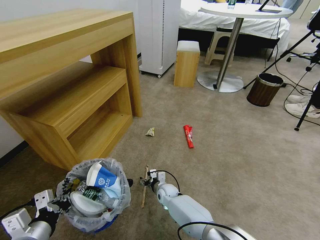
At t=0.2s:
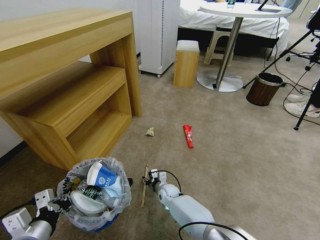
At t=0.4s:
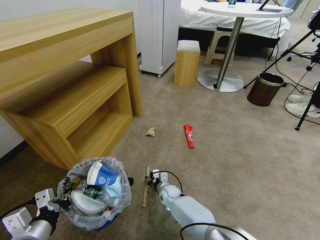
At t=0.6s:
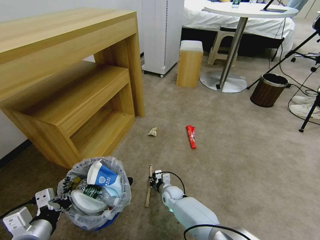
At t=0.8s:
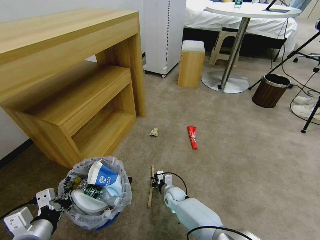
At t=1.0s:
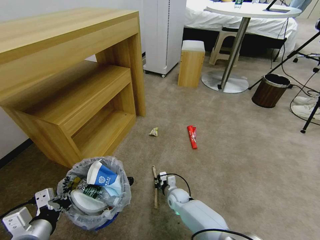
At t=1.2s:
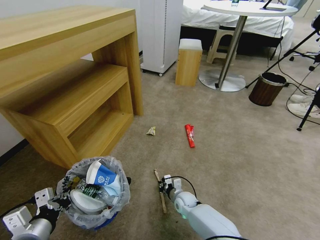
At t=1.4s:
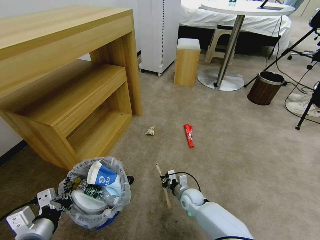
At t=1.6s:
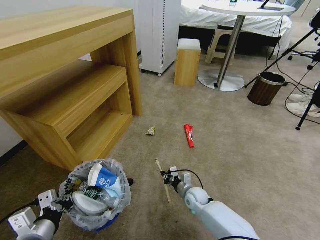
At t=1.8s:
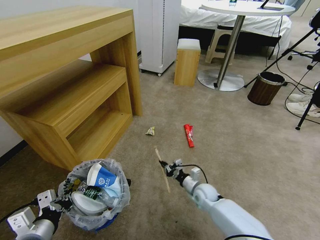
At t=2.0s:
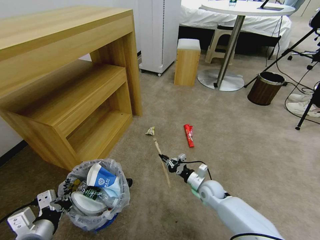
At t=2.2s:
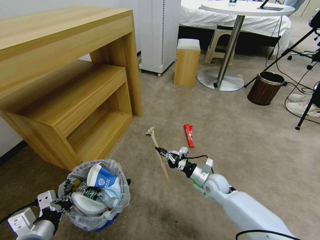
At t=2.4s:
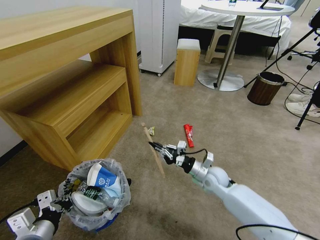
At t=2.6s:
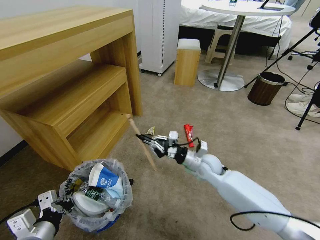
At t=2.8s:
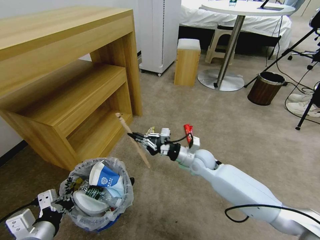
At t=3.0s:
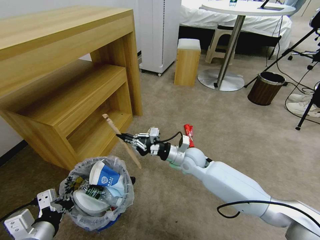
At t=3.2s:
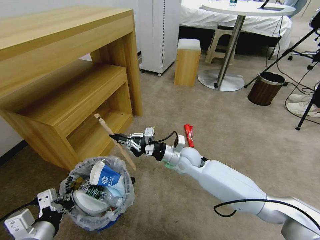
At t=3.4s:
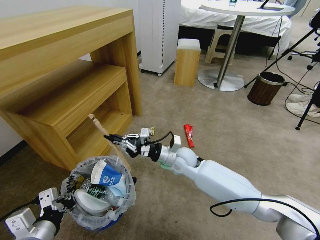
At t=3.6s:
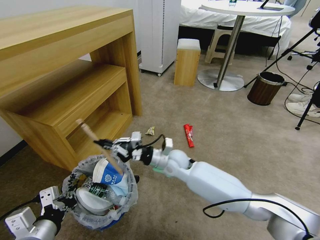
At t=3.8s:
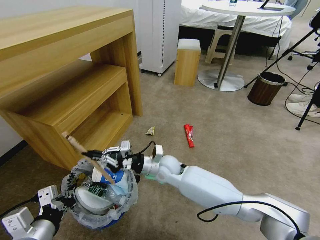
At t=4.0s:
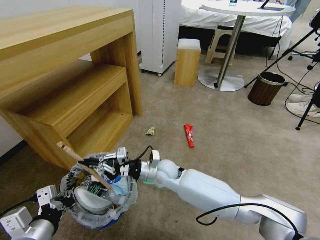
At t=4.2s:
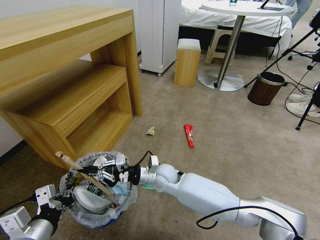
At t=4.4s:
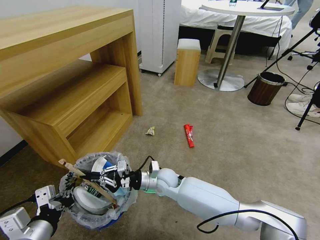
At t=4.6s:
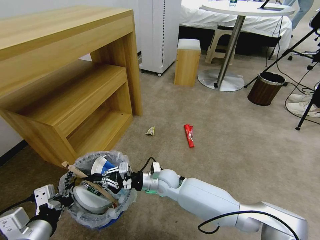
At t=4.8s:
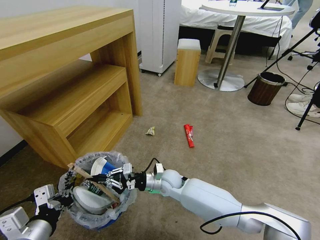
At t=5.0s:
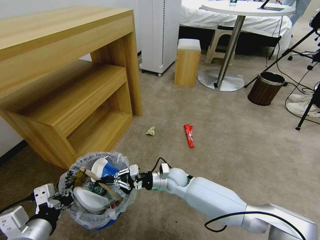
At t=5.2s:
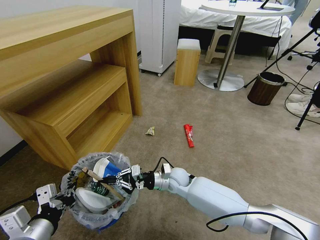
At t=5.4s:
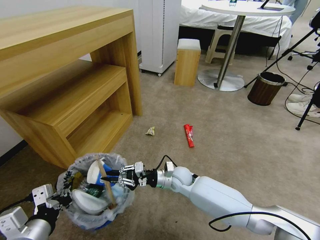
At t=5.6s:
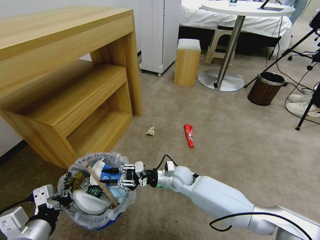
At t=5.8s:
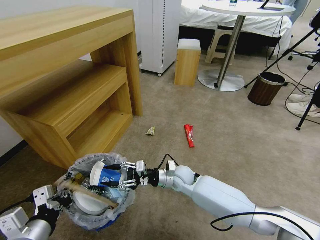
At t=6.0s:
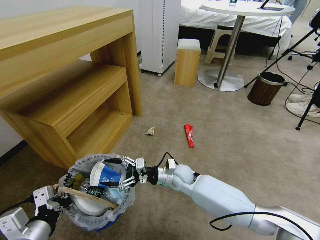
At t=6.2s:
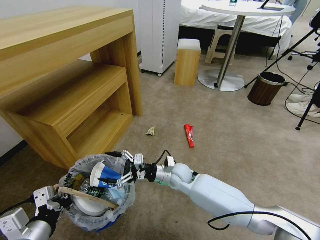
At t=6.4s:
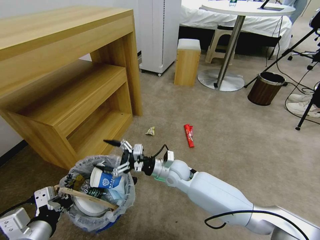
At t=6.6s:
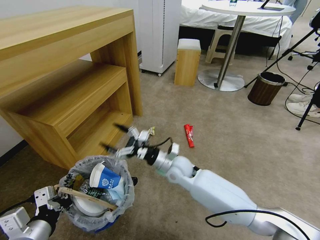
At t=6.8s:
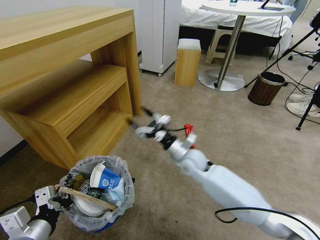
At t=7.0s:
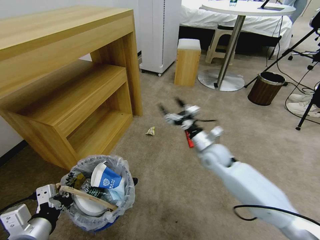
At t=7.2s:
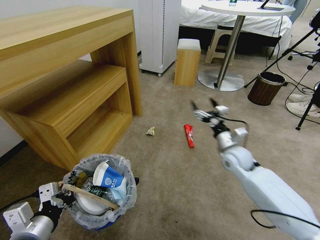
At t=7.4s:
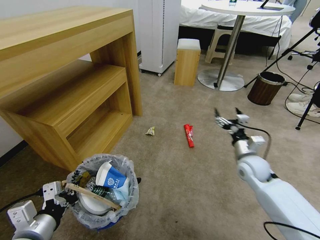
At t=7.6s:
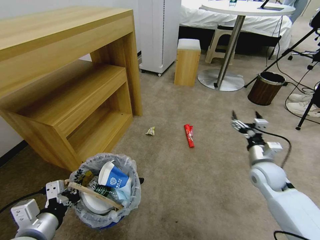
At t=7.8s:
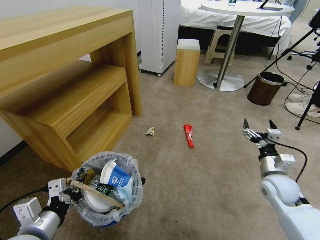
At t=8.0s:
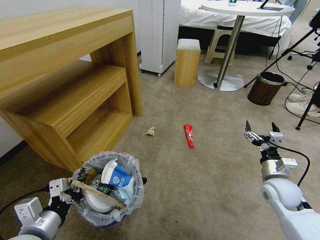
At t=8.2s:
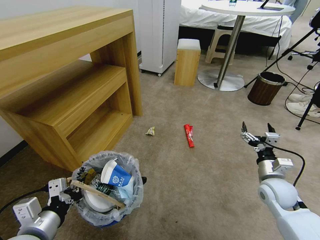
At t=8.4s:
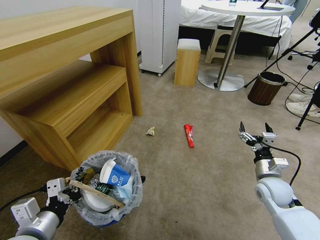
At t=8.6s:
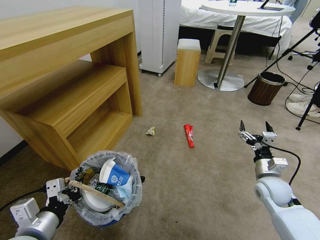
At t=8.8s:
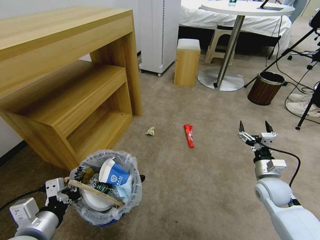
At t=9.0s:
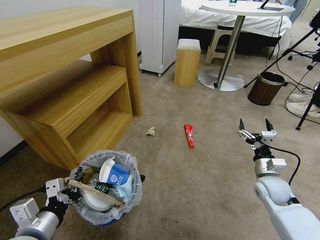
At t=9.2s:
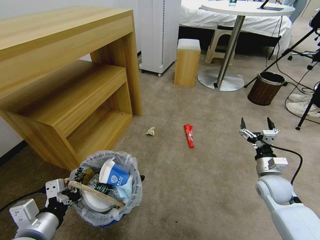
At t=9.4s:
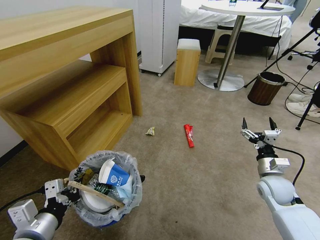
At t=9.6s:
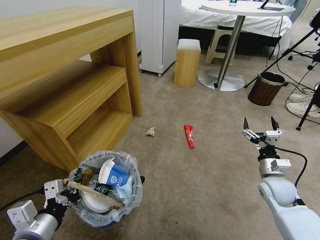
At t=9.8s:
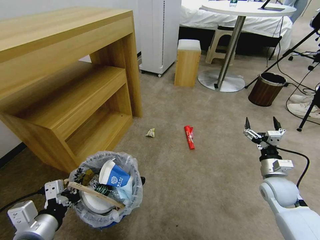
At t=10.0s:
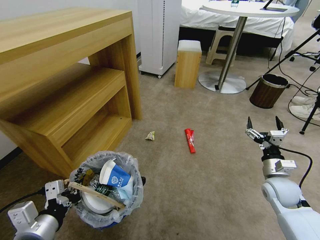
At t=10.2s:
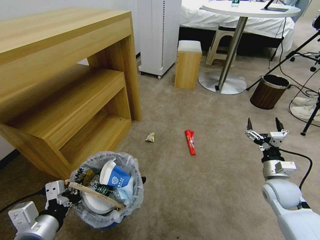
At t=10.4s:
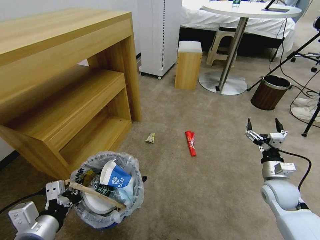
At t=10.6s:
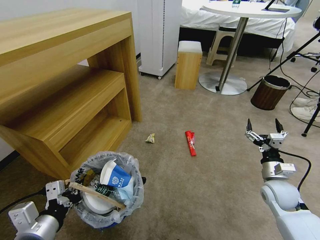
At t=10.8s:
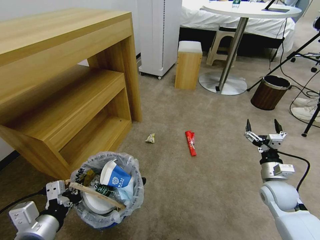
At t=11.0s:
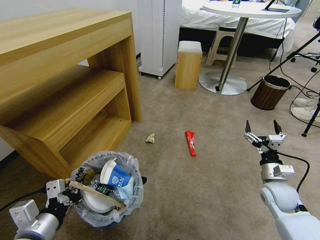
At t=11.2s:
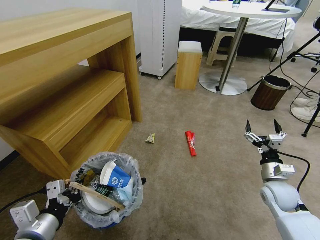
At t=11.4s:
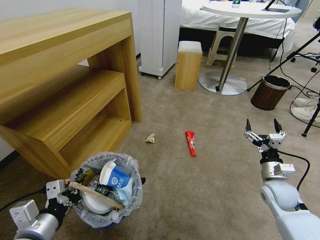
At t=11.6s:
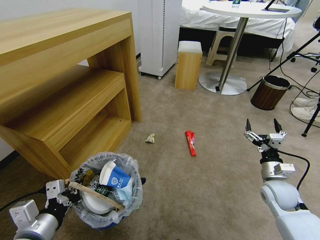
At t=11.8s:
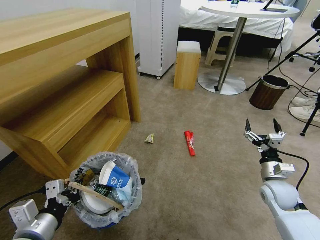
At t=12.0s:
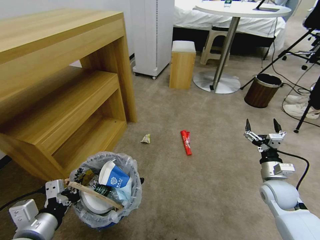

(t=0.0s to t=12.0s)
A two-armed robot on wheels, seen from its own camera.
Task of the whole recording: Pick up the trash bin and place the garbage on the floor into it.
t=0.0s - t=1.6s: The right gripper is displaced to the right by approximately 10 cm, and closes.
t=1.6s - t=3.0s: The right gripper heads upward, covering about 20 cm.
t=3.0s - t=4.4s: The right gripper travels to the left, downward and backward by roughly 15 cm.
t=4.4s - t=6.0s: The right gripper heads to the right, covering roughly 5 cm, and opens up.
t=6.0s - t=7.6s: The right gripper moves to the right, approximately 30 cm.
t=7.6s - t=9.0s: The right gripper ends up approximately 5 cm from where it was.

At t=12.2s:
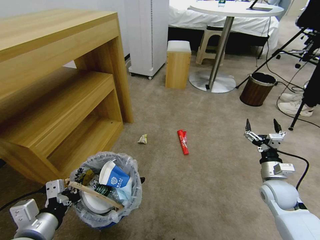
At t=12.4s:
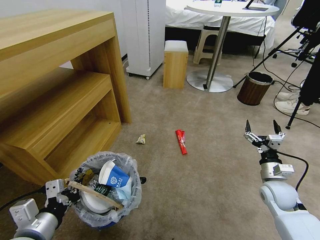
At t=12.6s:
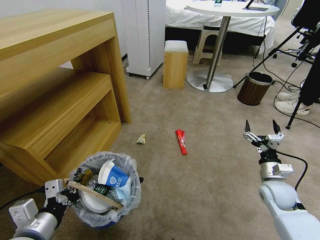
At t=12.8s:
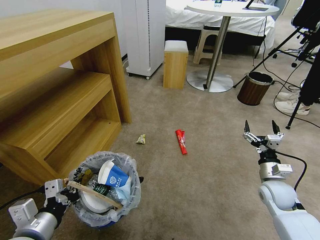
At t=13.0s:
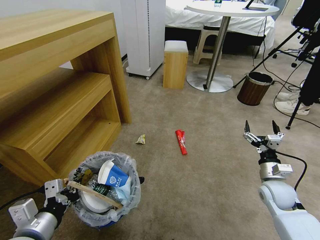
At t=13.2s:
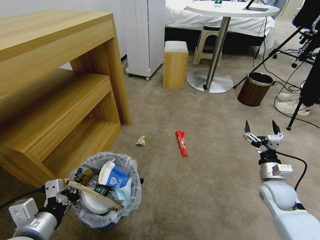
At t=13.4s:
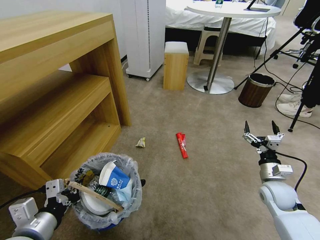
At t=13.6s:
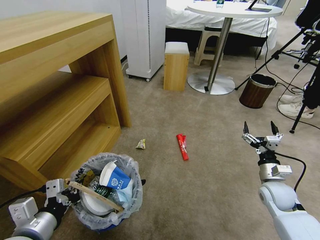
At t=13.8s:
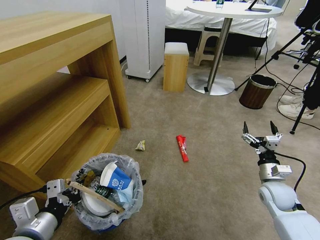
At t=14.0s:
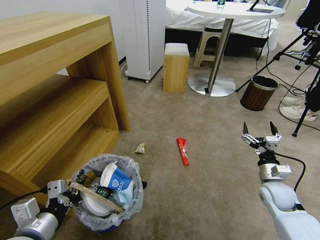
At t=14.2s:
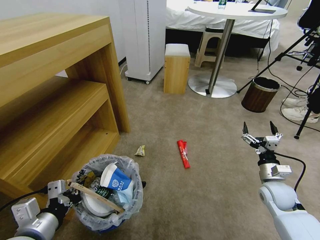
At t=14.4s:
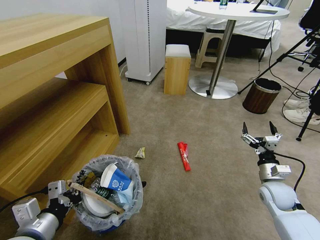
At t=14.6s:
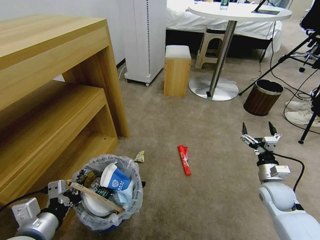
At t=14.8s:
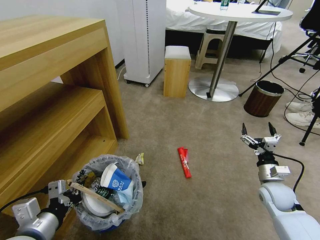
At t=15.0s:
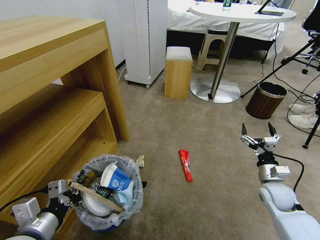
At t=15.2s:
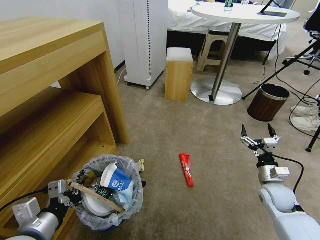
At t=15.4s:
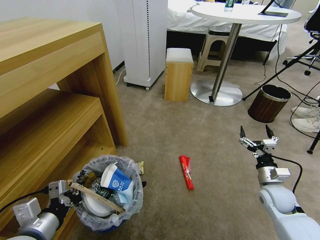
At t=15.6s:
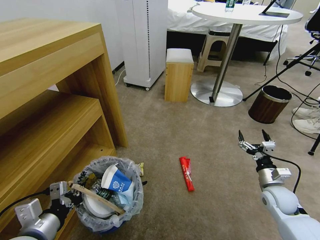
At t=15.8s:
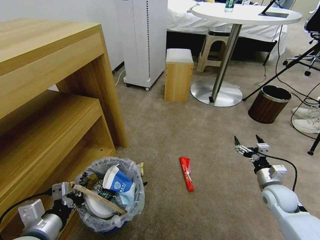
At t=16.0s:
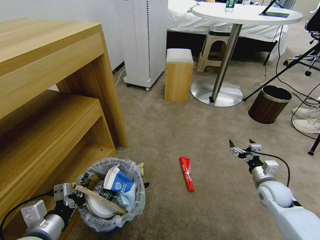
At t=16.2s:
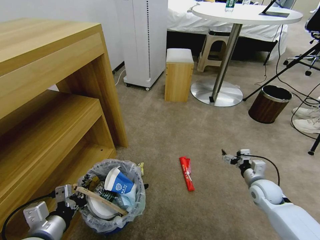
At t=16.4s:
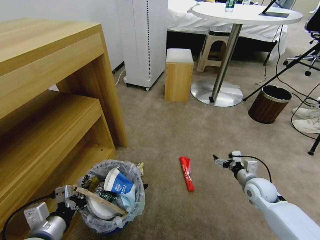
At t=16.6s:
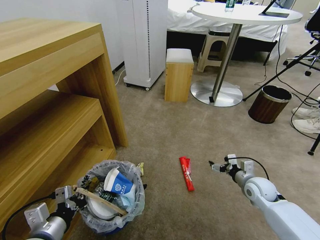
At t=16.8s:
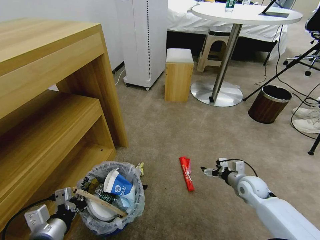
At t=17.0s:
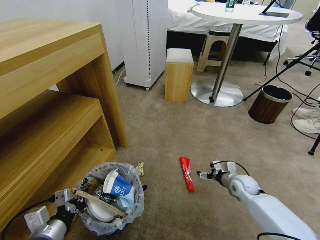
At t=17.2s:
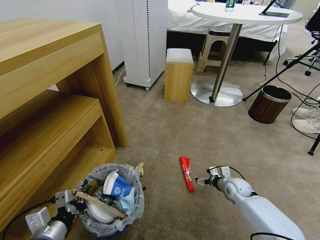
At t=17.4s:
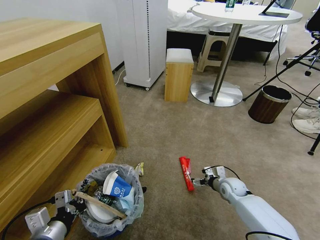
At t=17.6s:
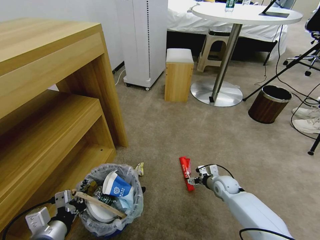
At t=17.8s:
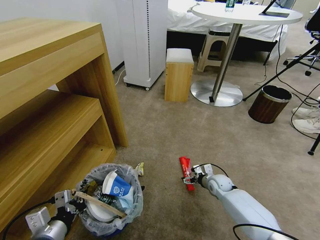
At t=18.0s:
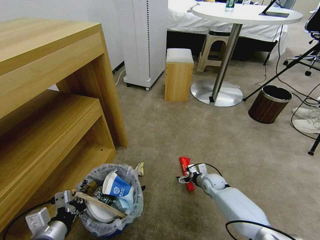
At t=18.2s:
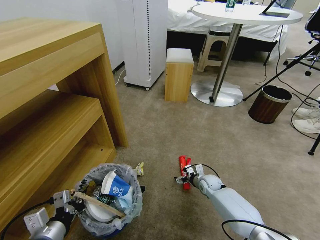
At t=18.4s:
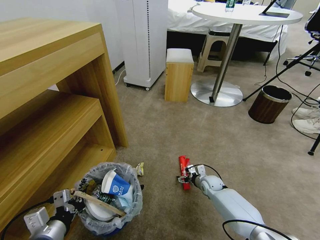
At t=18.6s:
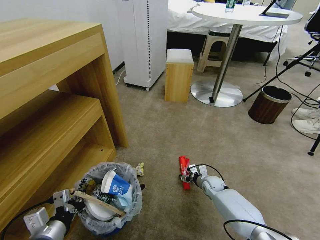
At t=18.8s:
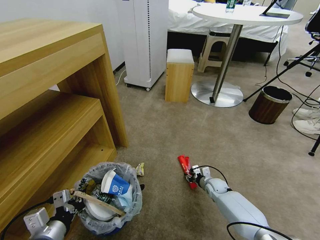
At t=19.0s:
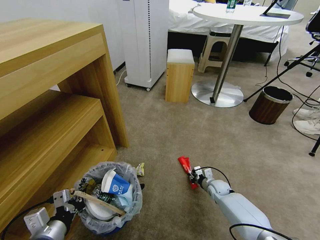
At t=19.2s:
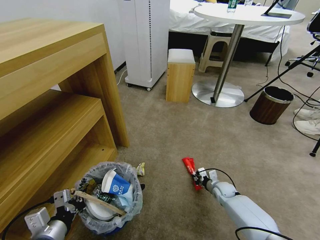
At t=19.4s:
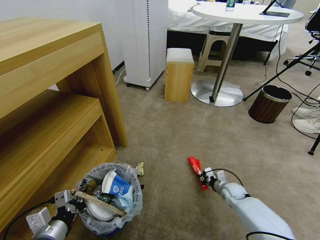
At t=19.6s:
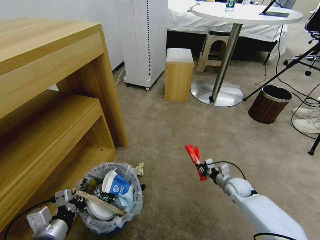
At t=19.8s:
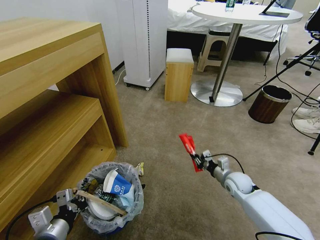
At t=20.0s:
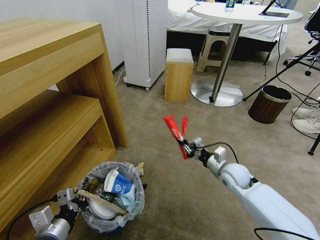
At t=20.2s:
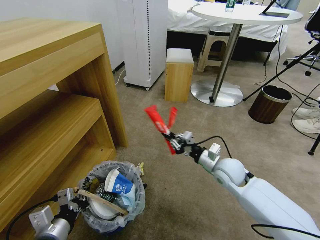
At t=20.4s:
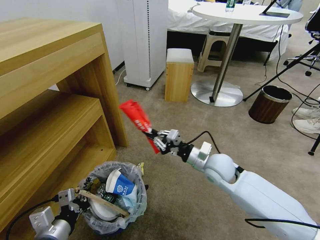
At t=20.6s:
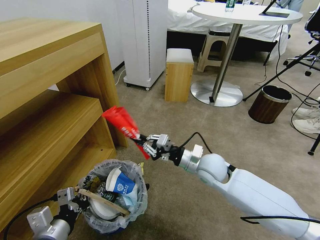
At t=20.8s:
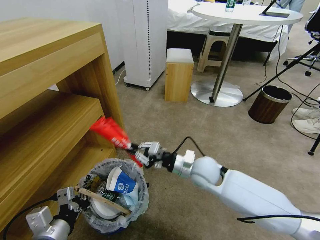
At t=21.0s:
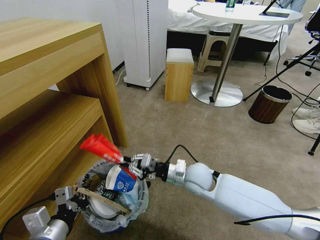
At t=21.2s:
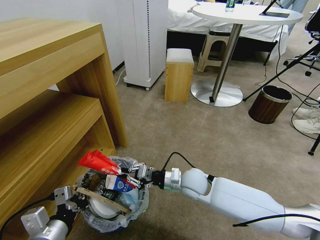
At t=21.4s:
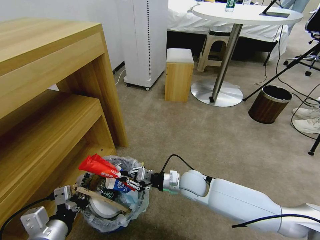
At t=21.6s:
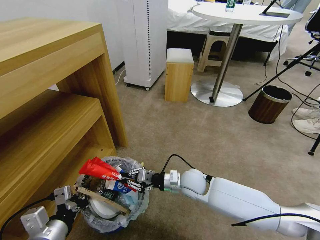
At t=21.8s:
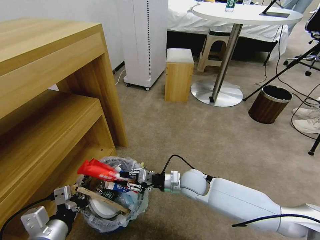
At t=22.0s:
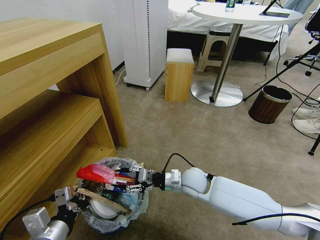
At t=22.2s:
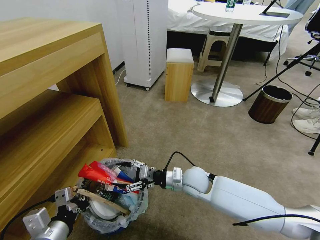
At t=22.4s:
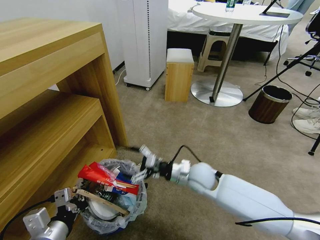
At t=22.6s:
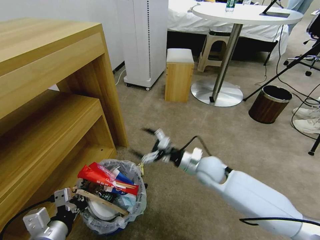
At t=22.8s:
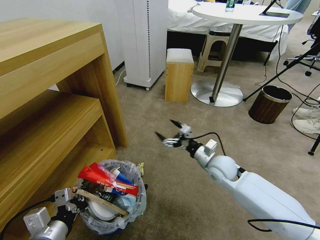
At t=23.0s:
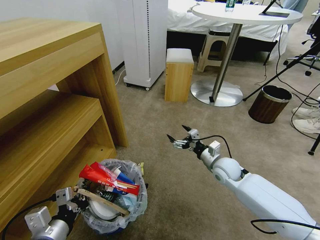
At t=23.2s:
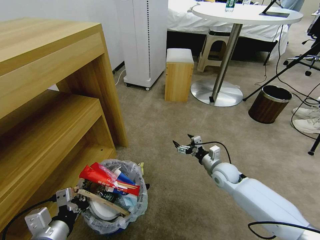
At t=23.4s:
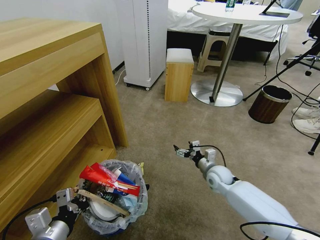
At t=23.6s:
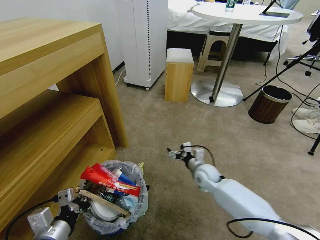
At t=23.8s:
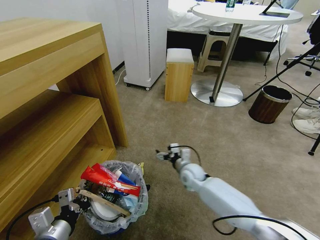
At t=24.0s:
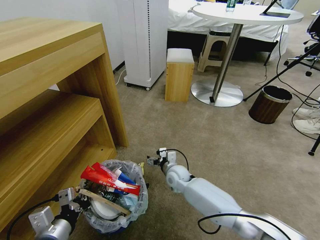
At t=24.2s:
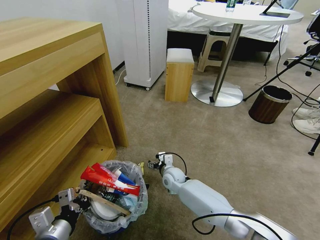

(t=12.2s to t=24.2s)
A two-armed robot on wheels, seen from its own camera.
Task of the whole recording: Pick up the trash bin and place the garbage on the floor into it.
t=12.2s - t=13.8s: Both grippers stay about where they are.
t=16.6s - t=18.2s: The right gripper goes about 20 cm to the left, downward and forward.
t=18.2s - t=19.8s: The right gripper is displaced upward and to the right by some 15 cm, and closes up.
t=19.8s - t=21.2s: The right gripper travels to the left by some 20 cm.
t=21.2s - t=22.6s: The right gripper moves approximately 5 cm, and opens up.
t=22.6s - t=24.2s: The right gripper heads downward and to the left, covering approximately 20 cm.
